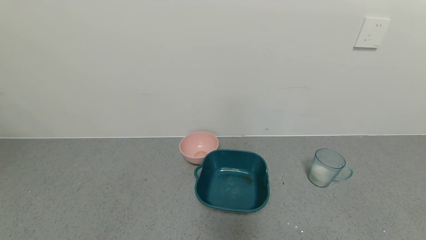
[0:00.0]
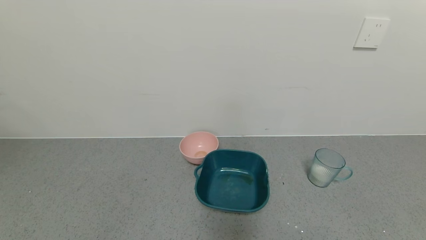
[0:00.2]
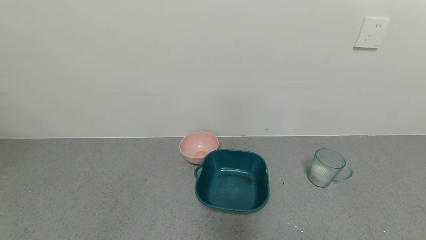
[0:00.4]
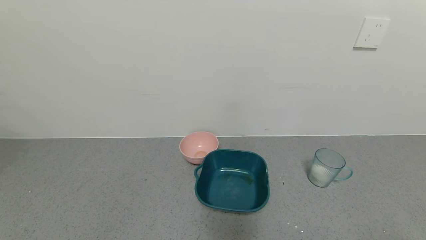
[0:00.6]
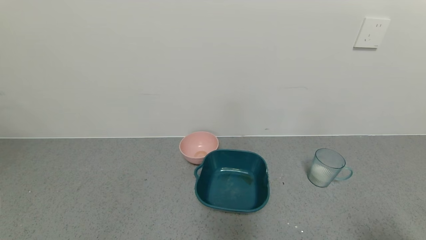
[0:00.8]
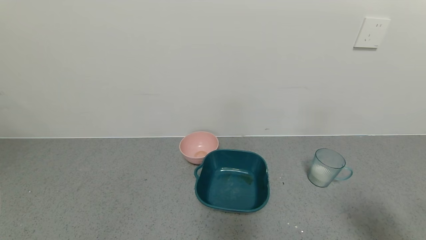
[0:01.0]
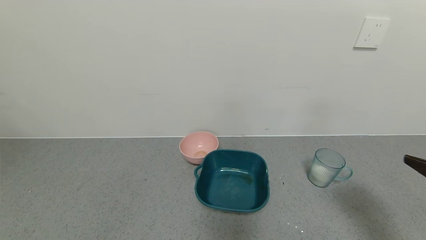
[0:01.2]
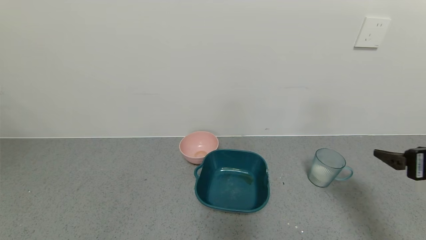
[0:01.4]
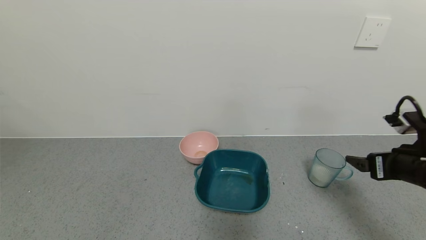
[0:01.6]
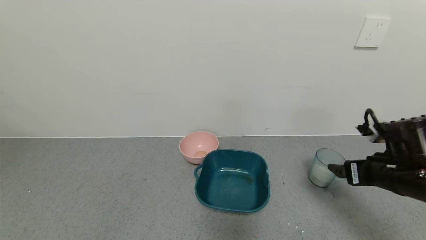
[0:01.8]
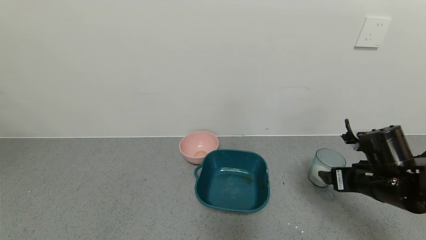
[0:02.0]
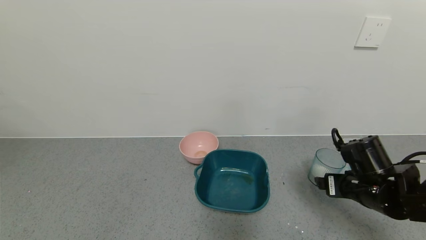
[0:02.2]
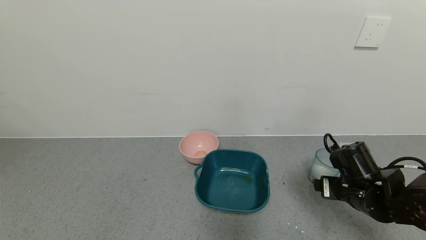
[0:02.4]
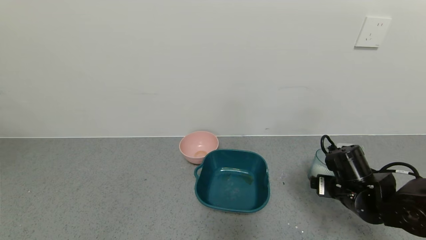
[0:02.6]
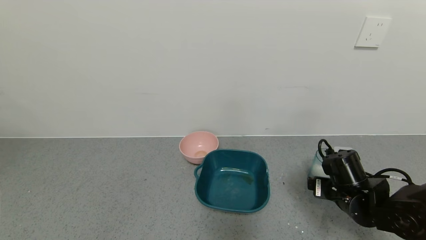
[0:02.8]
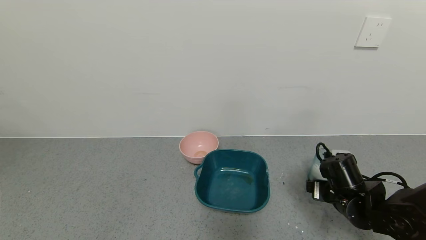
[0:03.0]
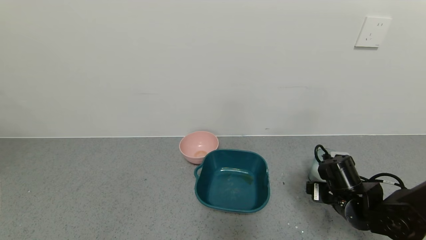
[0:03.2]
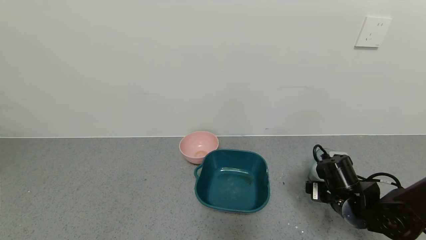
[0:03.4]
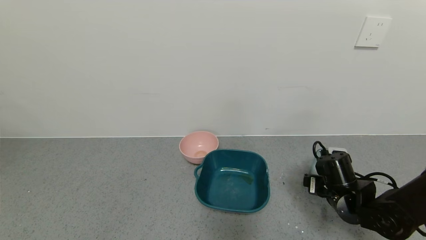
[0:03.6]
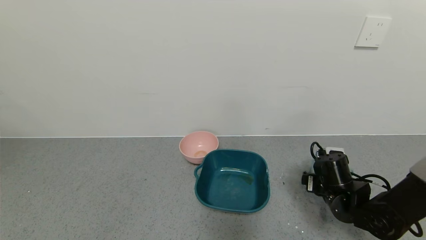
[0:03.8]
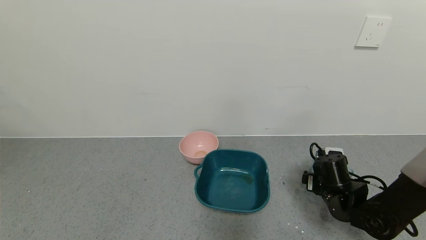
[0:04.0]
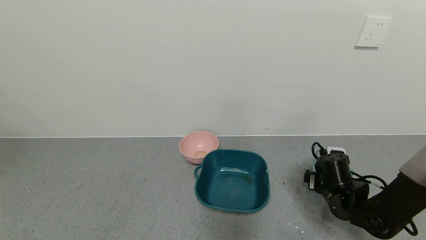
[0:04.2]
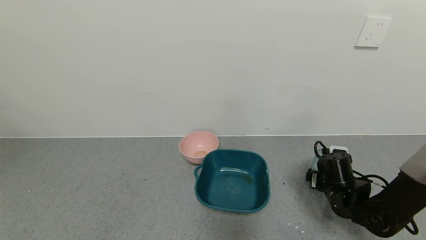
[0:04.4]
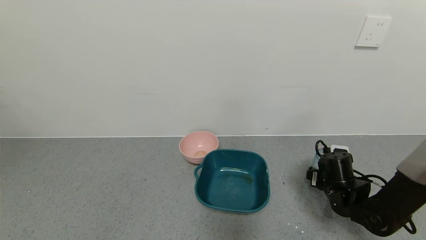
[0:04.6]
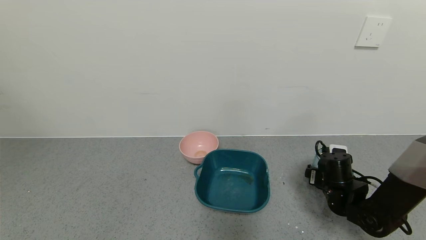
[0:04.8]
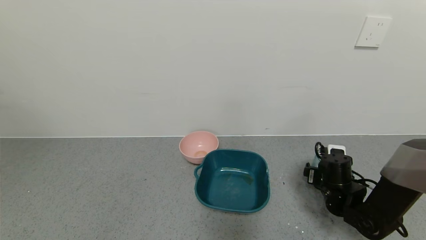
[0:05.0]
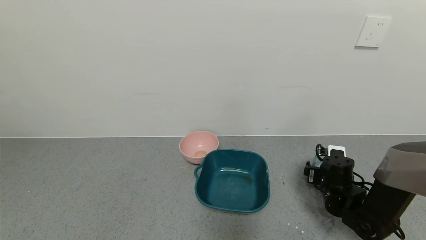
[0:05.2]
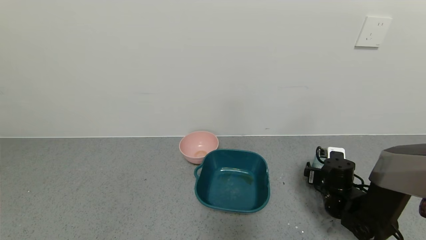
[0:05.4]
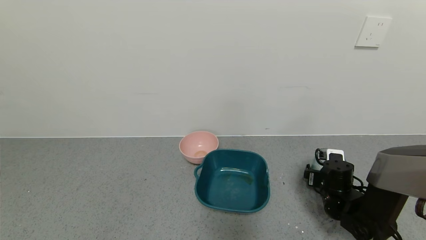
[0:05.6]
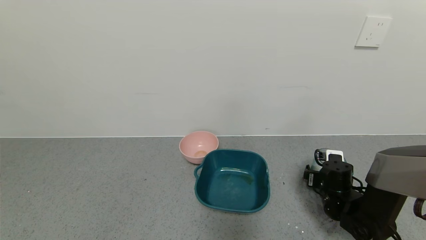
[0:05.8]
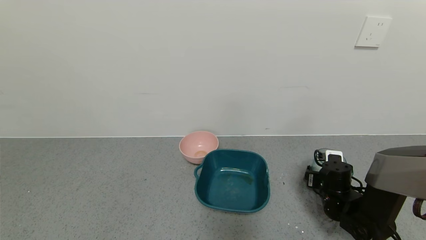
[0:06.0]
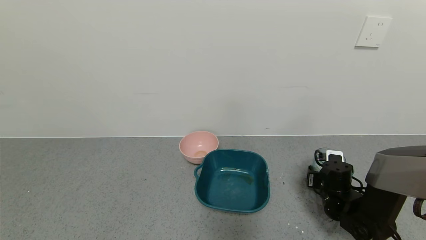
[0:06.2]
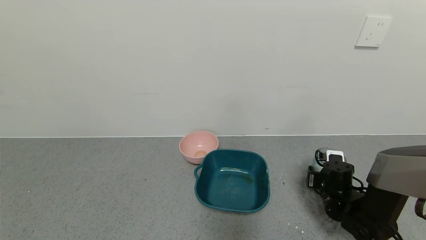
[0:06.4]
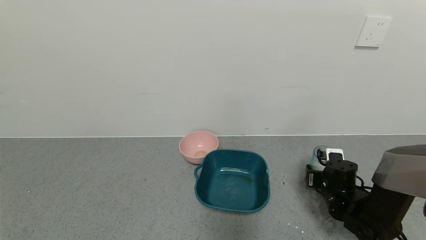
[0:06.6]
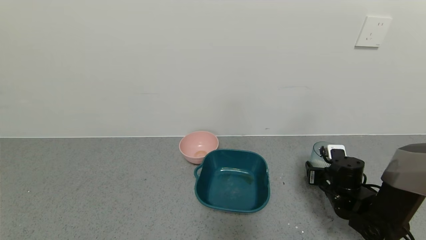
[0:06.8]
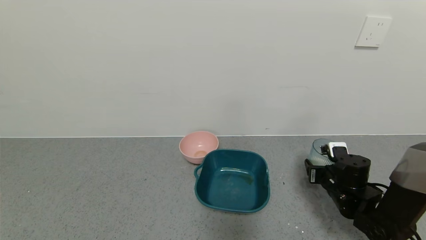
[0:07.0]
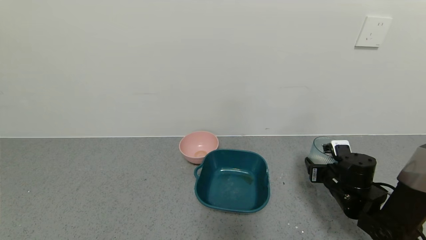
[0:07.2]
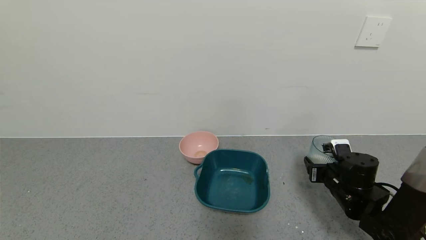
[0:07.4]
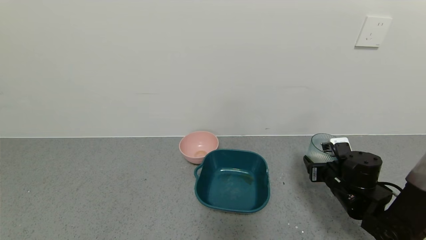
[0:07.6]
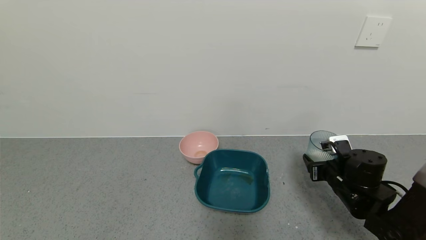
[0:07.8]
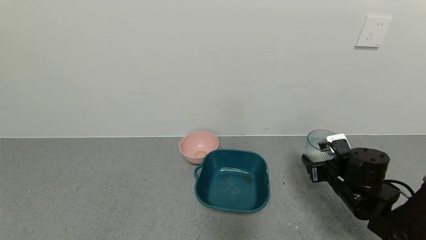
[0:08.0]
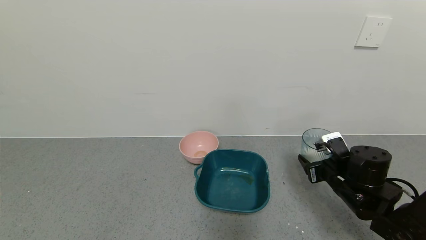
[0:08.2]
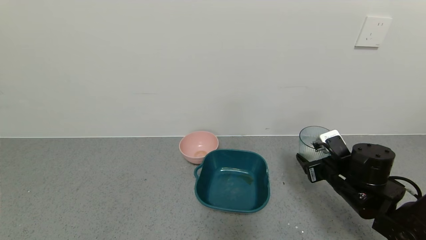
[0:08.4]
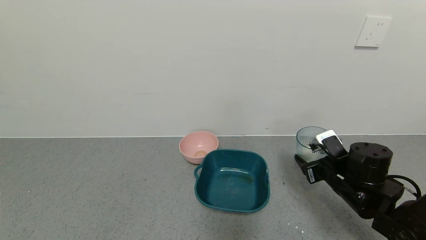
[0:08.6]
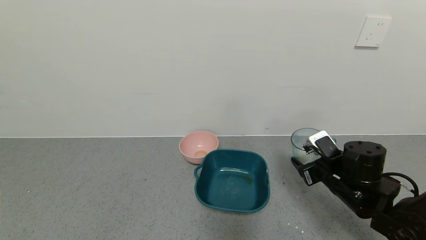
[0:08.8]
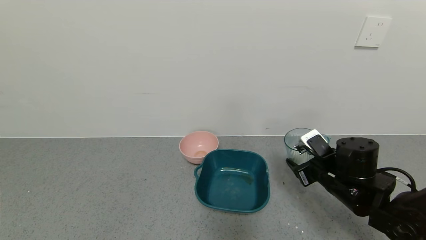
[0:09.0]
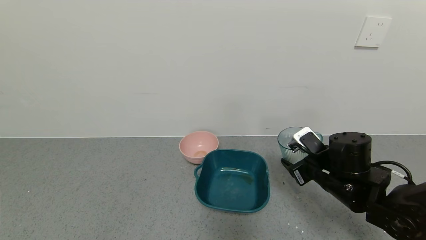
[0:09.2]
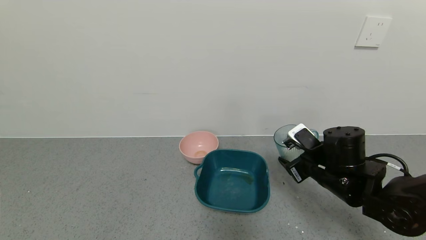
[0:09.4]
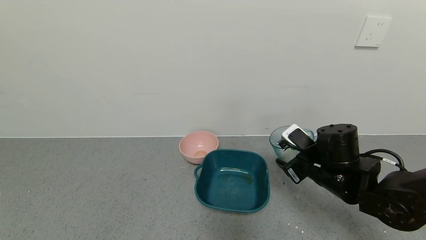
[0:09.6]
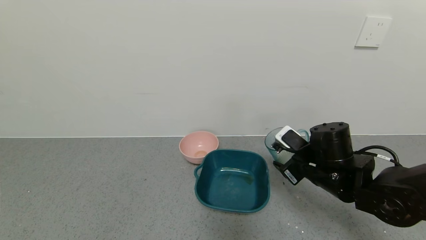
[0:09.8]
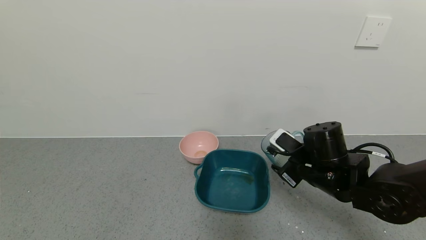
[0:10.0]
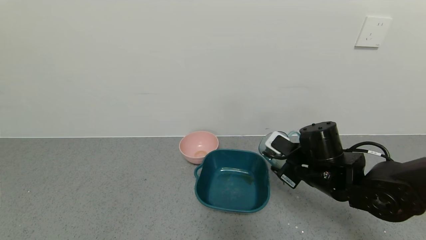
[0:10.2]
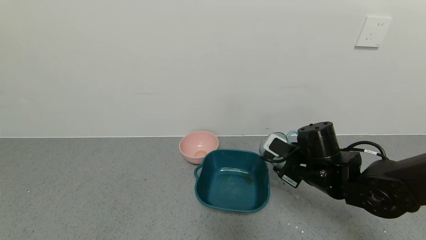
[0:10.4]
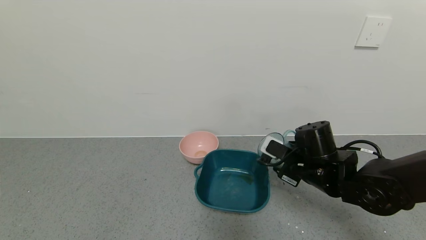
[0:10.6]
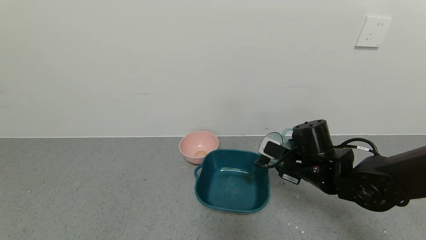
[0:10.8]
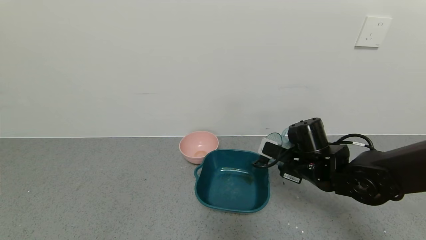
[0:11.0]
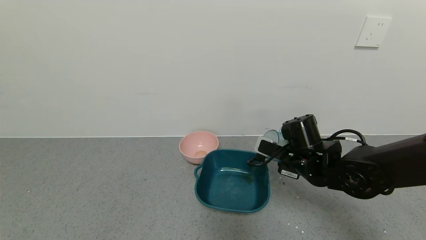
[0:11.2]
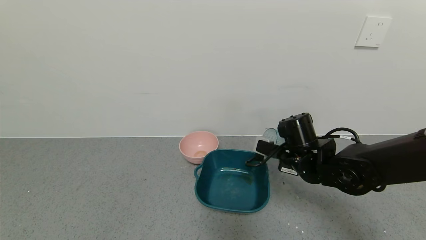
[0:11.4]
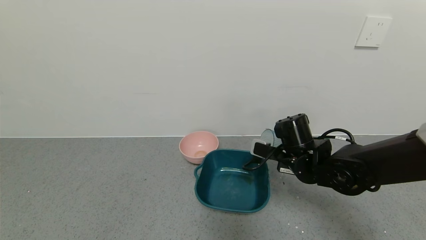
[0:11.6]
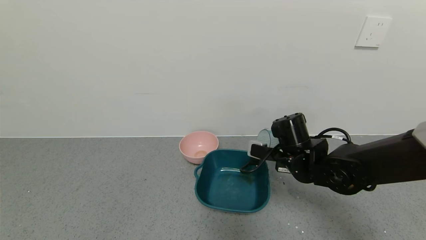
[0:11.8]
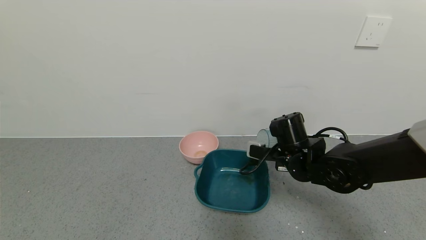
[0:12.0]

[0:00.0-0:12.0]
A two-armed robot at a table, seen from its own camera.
Task of the whole recording: use a gripper to pick up the cup and pour the powder into a bowl or tray.
Step, 0:00.0 to 0:06.4: Grasp the glass of powder with the right gripper.
0:00.0 to 0:01.6: The right gripper moves forward and upward, some 25 cm.
0:01.6 to 0:03.0: The right gripper travels downward and to the left by roughly 15 cm.
0:03.0 to 0:04.4: The right gripper shifts by roughly 5 cm.
0:04.4 to 0:06.0: The grippers move only a little.
0:06.0 to 0:07.6: The right gripper moves upward, approximately 5 cm, and closes.
0:07.6 to 0:09.0: The right gripper moves about 5 cm.
0:09.0 to 0:10.4: The right gripper changes place by some 5 cm.

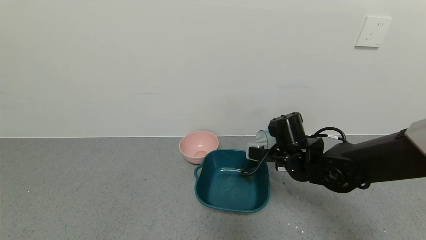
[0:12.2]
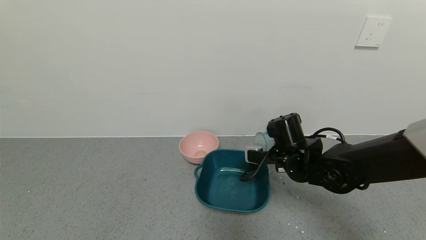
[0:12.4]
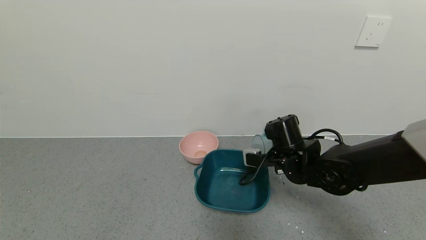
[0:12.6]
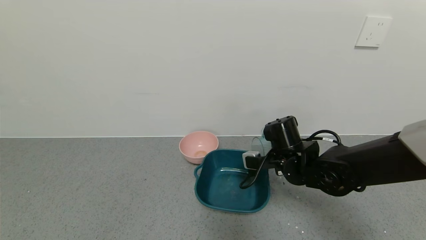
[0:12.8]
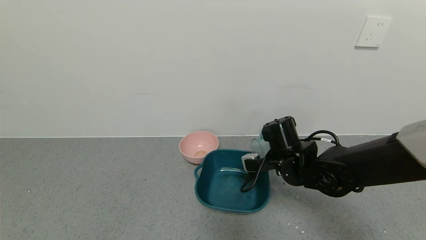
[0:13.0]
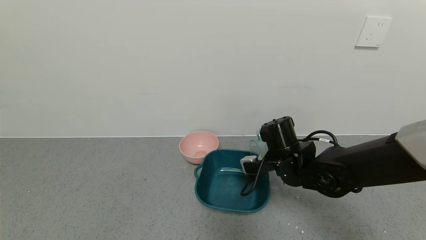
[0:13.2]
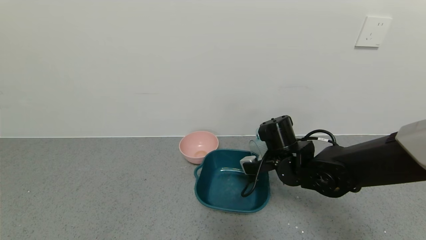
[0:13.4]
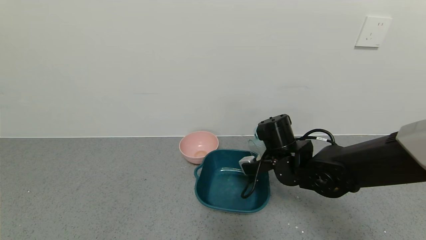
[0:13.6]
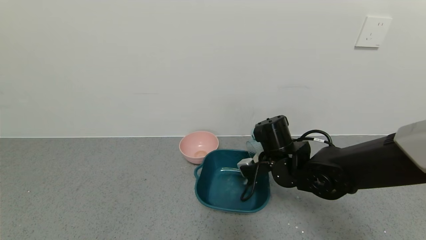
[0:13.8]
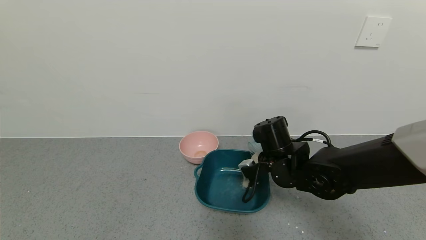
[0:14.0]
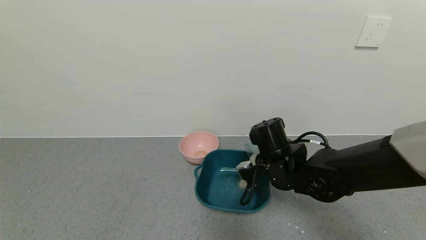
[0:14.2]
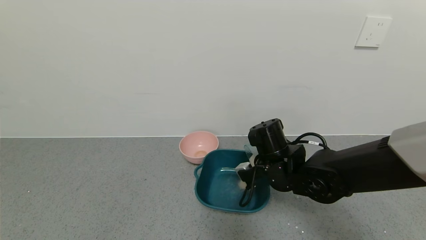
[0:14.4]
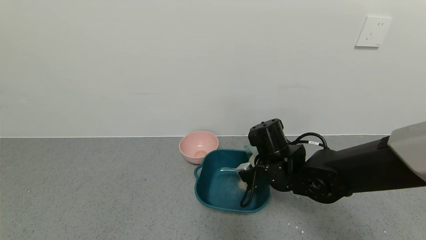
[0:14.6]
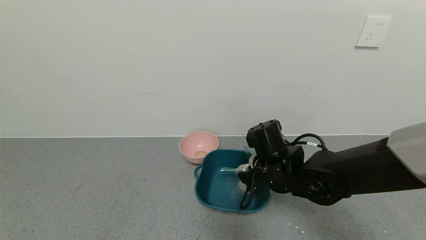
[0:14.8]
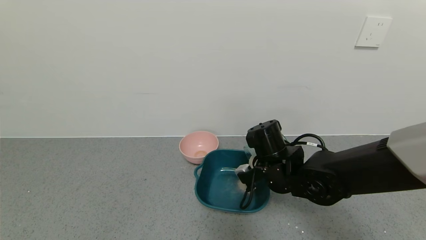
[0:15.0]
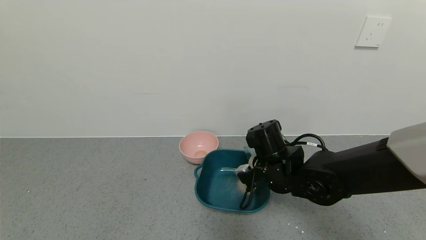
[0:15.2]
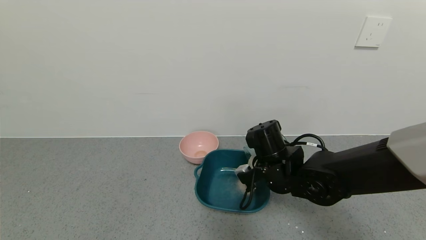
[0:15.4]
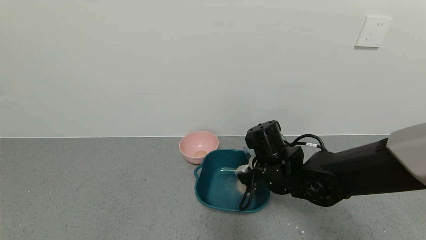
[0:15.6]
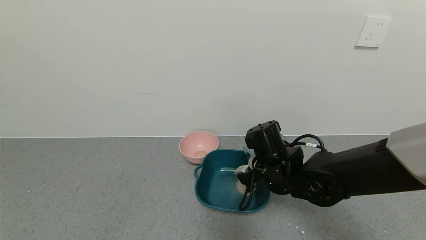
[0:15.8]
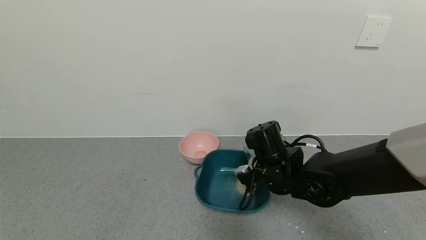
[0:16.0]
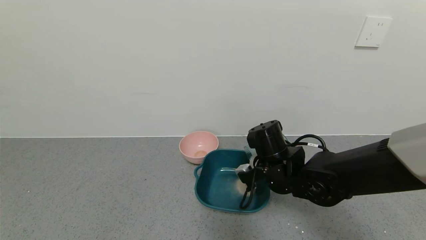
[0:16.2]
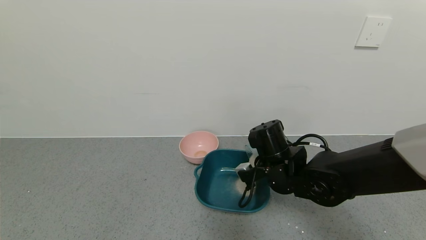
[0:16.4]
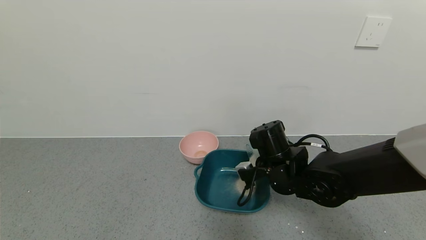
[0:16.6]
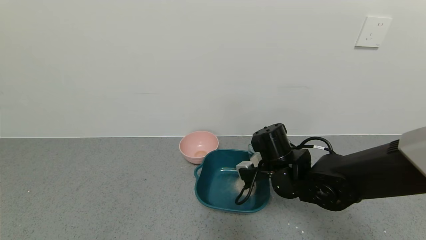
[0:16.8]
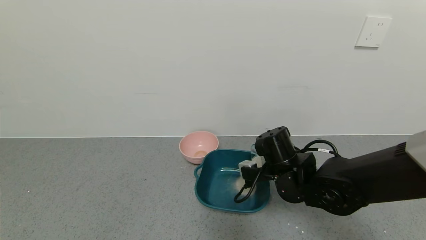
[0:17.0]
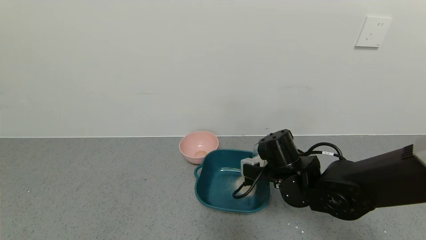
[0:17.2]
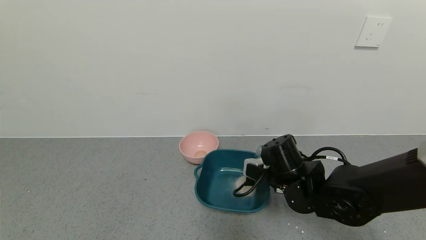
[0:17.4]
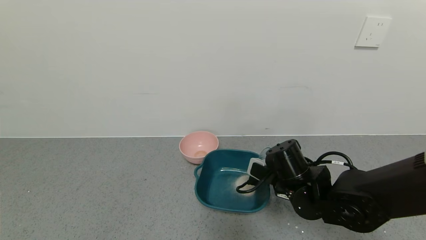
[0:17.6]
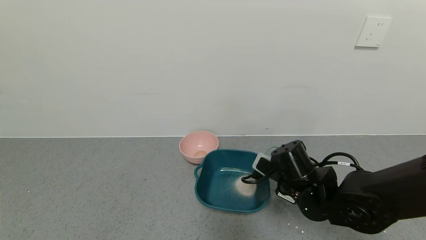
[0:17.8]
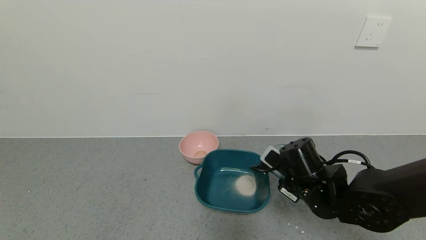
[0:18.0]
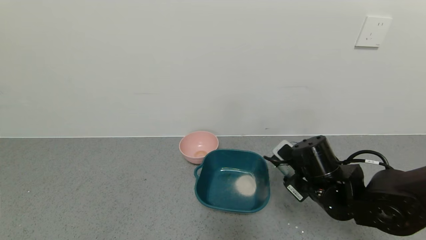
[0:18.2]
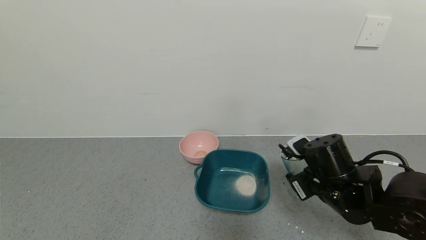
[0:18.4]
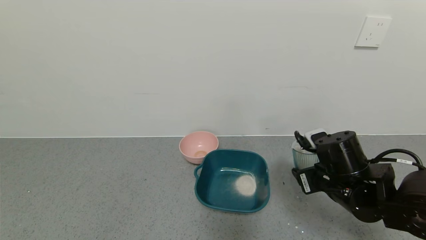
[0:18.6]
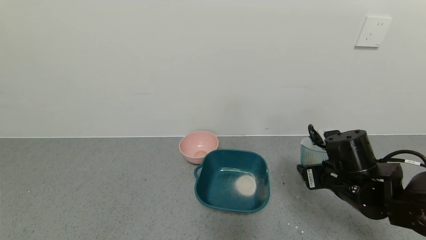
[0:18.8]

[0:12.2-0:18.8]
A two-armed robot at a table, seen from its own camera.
Task of the whole recording: use a gripper to pick up the cup and pour the powder into a bowl or tray.
Step, 0:12.2 to 0:16.4: Pour the powder into the pink bowl with the right gripper.
0:13.8 to 0:15.4: There are only small adjustments of the grippers.
0:17.2 to 0:18.8: The right gripper travels to the right by approximately 10 cm.
